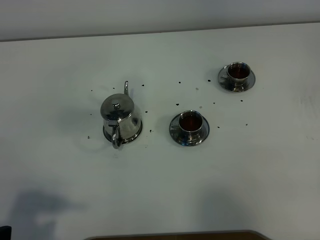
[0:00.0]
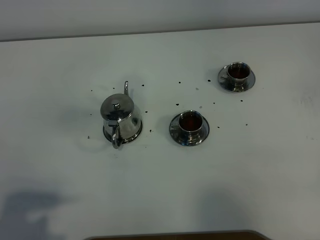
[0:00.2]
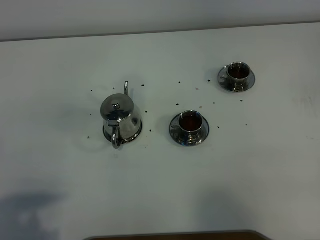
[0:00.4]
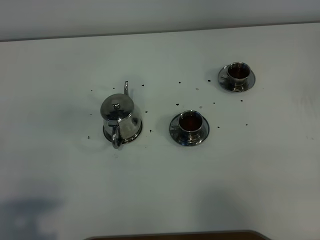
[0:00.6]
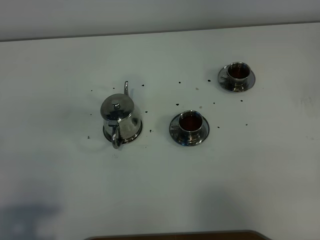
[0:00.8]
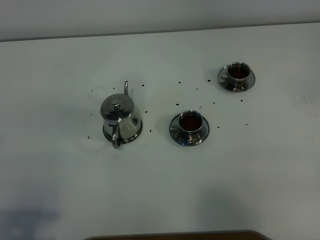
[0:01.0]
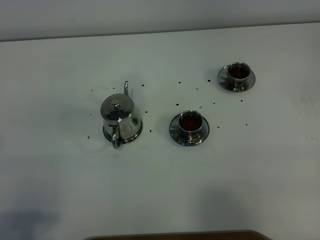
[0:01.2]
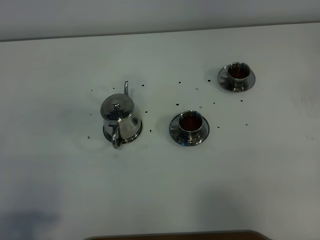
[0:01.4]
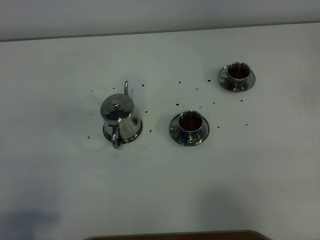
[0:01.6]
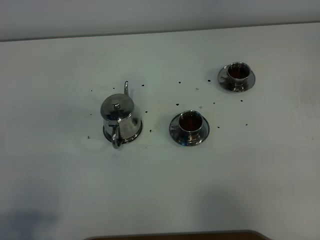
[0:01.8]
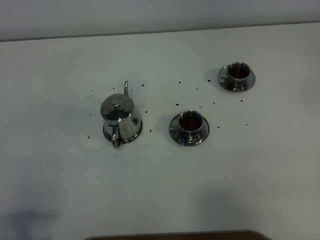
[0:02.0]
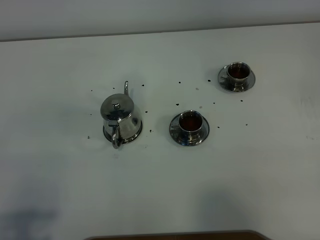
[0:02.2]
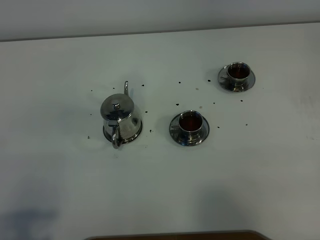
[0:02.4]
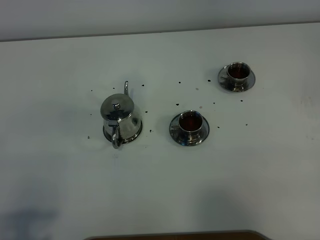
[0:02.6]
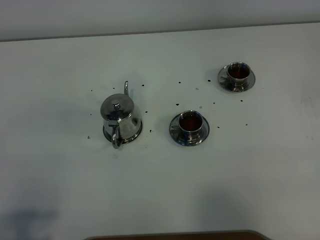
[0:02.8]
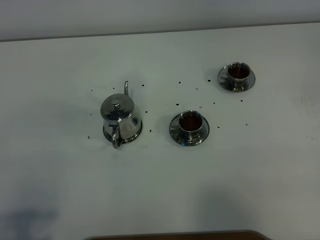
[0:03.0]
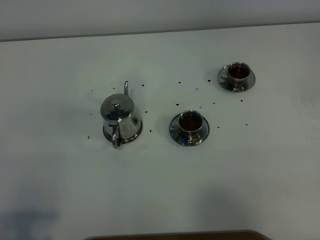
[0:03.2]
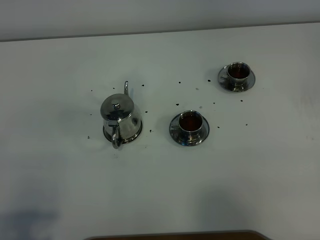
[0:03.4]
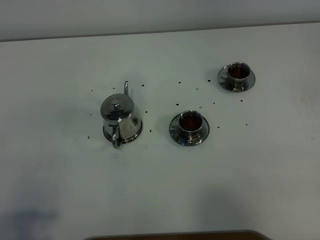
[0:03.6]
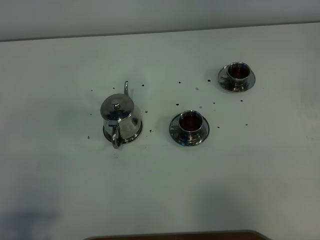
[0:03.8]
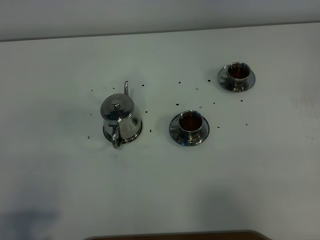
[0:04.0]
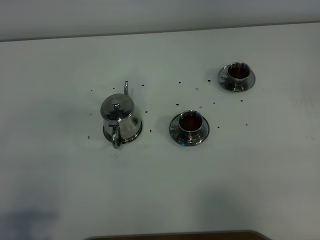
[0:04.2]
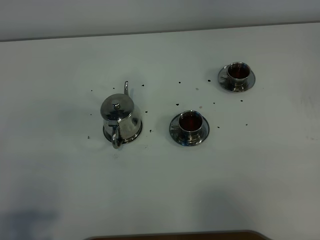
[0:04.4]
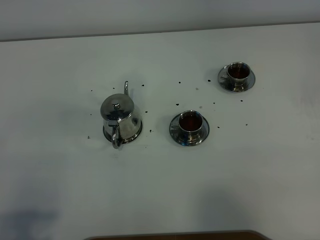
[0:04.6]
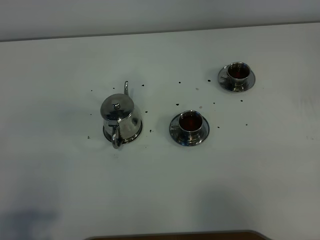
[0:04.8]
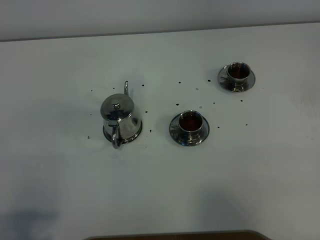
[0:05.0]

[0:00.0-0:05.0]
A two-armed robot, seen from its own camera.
Task of the whole recording: grasp the stainless steel teapot and pour the tea into the two stainless steel teacups one by one, put the stainless steel teapot back in its original place.
0:03.4 to 0:05.0: Both grippers stay about where they are.

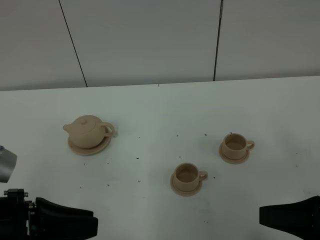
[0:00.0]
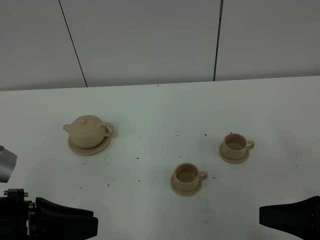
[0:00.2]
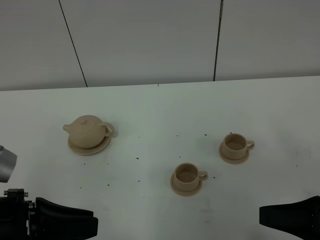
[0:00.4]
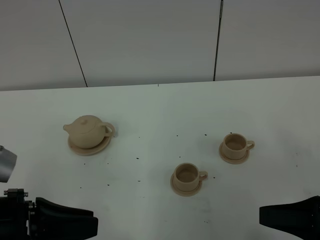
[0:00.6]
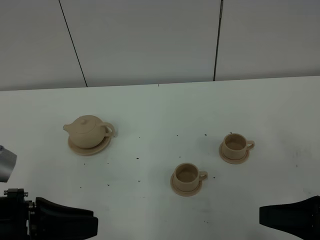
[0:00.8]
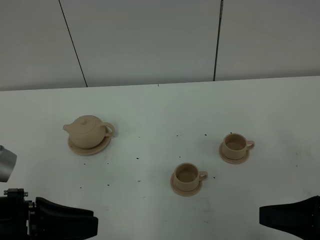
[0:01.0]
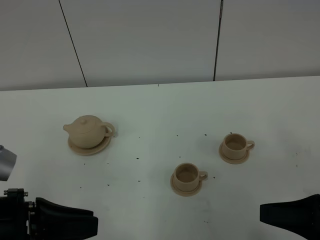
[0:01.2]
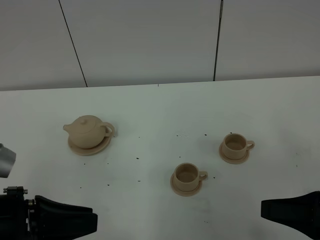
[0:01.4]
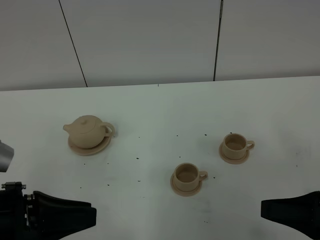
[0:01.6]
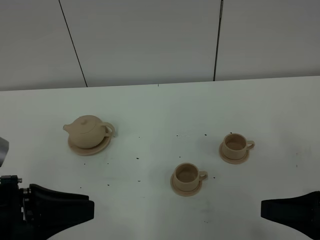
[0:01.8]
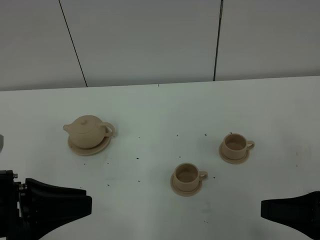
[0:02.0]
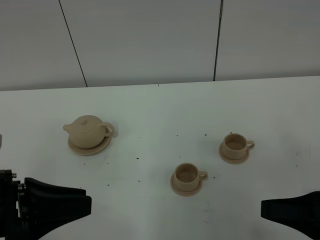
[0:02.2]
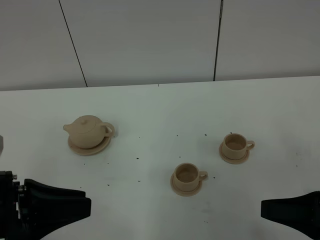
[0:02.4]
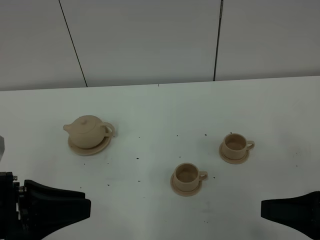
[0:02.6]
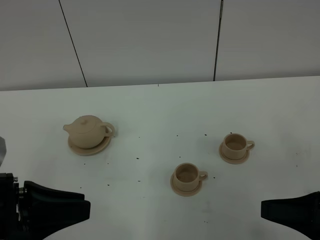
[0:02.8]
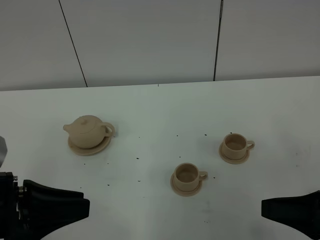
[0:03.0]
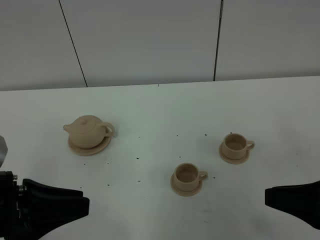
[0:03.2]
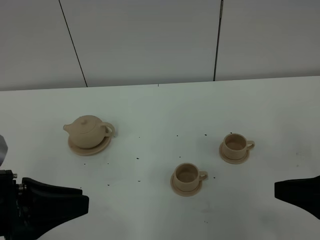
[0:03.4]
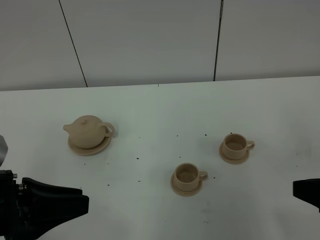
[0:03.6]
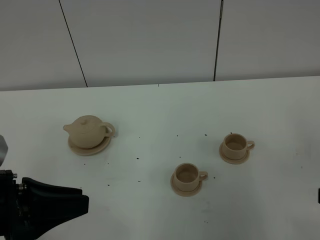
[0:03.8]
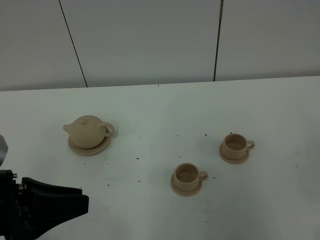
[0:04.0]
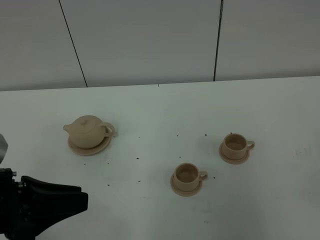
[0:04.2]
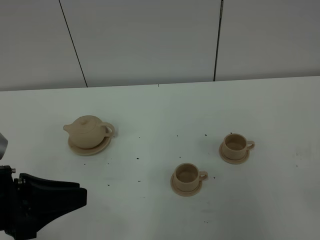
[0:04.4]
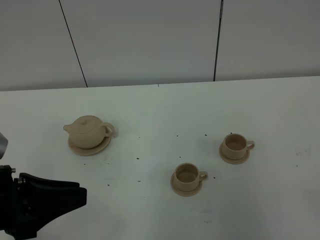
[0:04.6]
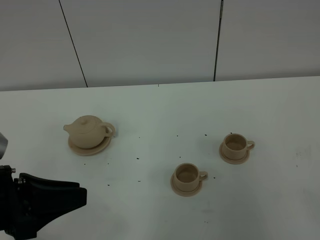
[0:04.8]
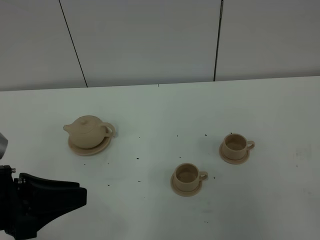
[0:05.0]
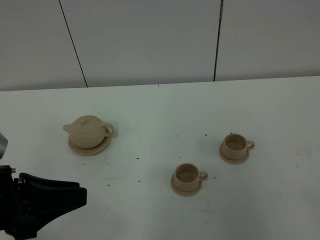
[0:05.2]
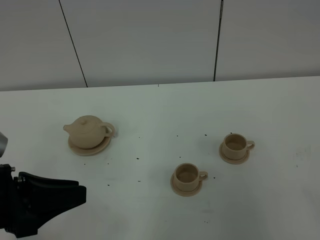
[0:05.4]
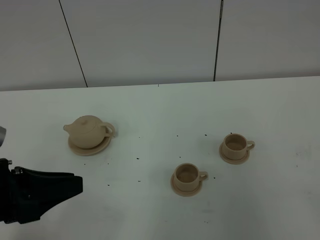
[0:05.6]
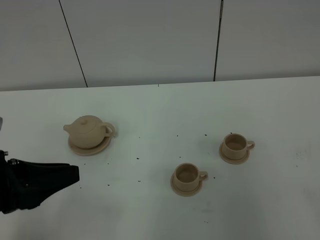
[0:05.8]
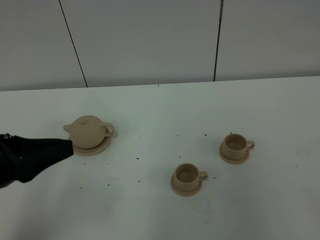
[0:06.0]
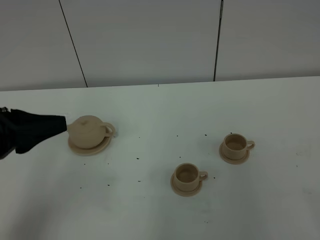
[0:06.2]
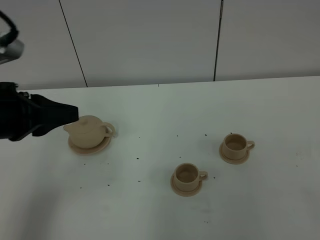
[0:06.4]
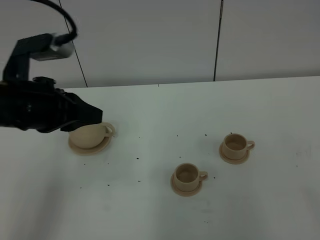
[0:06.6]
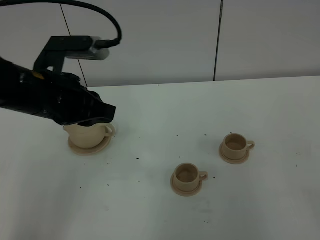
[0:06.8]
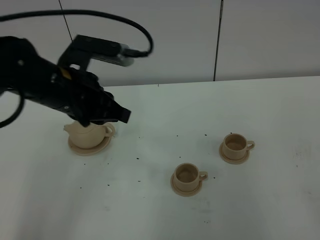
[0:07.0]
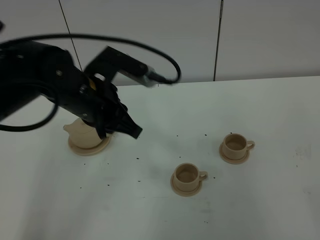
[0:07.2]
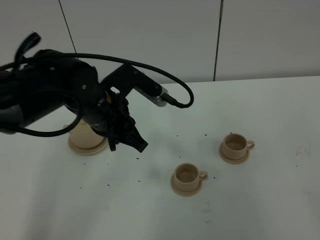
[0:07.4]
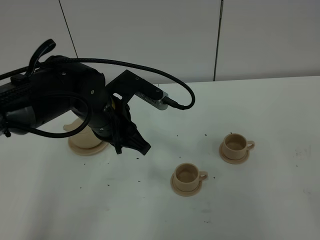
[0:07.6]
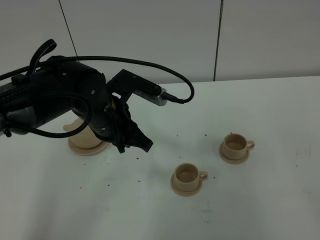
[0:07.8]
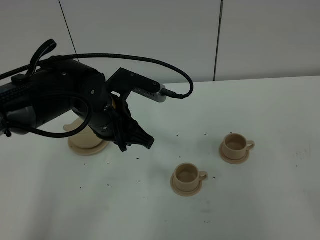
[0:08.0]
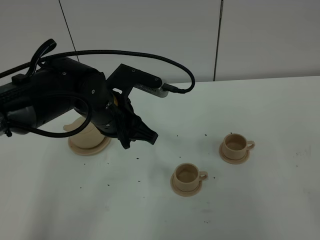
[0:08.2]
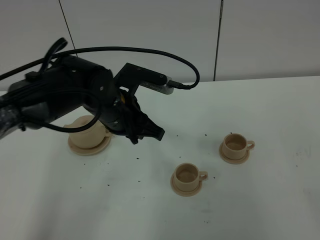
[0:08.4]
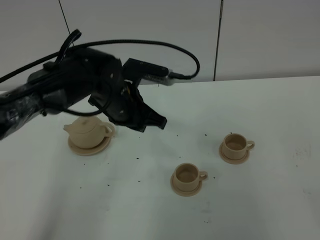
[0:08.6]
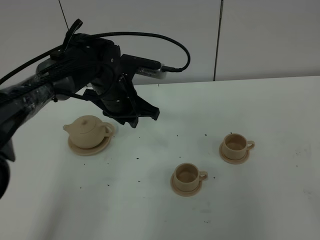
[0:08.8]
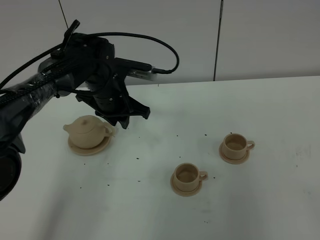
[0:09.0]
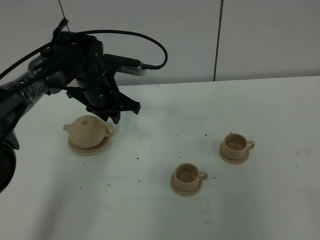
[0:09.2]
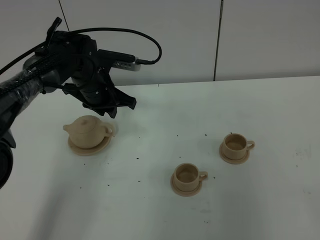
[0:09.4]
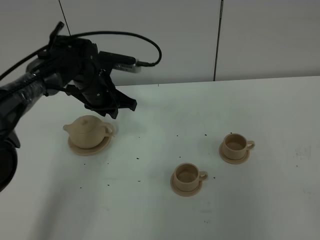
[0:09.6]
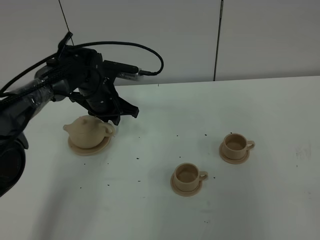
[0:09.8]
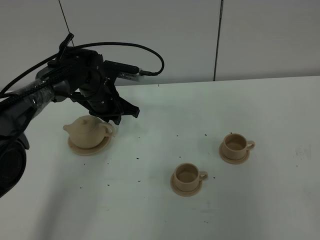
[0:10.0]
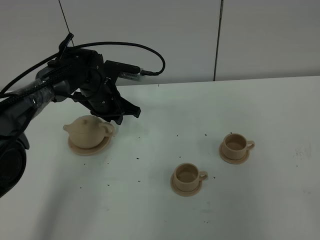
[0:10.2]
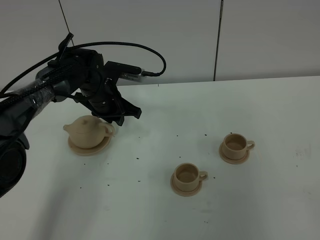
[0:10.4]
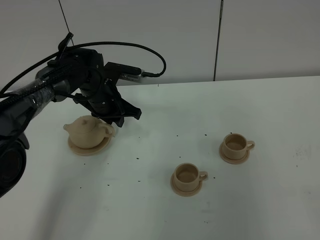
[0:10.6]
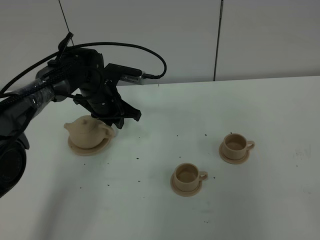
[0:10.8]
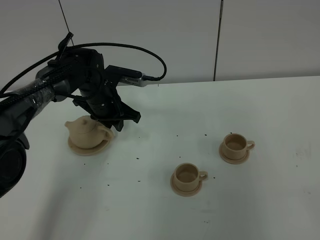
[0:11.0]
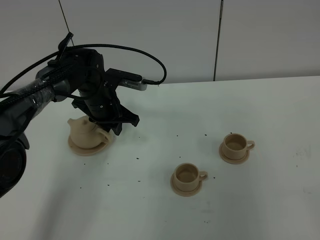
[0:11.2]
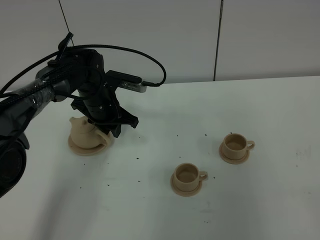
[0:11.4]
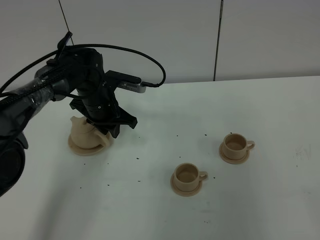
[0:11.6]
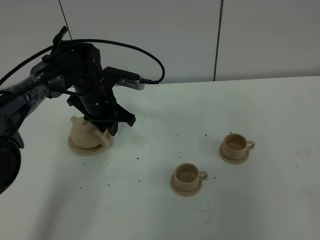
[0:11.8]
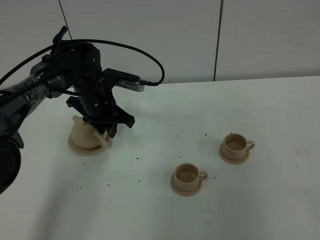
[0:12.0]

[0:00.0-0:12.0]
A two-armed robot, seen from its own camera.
Task of the whole recording: grasp the brown teapot and pour the tea into the two brown teacups one by one, put the brown teapot back in its original place.
0:00.0 to 0:01.6: Both grippers stay put.
0:01.6 to 0:03.0: There are only small adjustments of the grippers.
0:03.0 to 0:04.4: The right gripper is displaced backward and to the right by approximately 10 cm.
0:04.4 to 0:06.0: There are only small adjustments of the grippers.
0:06.0 to 0:07.6: The left gripper is displaced forward, to the right and downward by some 20 cm.
0:07.6 to 0:09.0: The left gripper moves forward, about 10 cm.
0:09.0 to 0:10.4: The left gripper shifts by about 5 cm.
0:10.4 to 0:12.0: The grippers make only small movements.

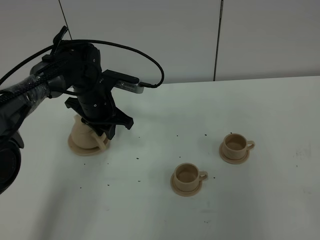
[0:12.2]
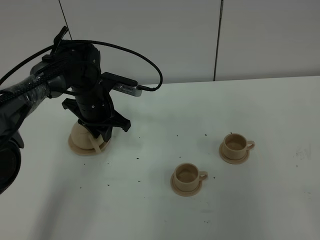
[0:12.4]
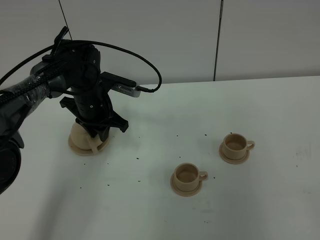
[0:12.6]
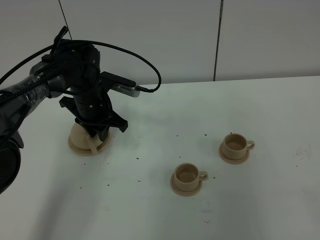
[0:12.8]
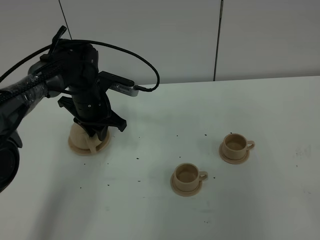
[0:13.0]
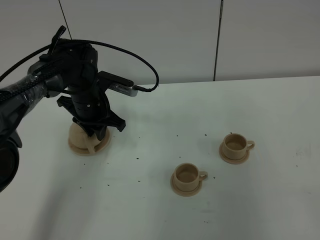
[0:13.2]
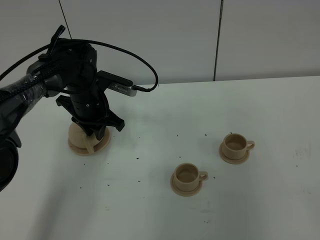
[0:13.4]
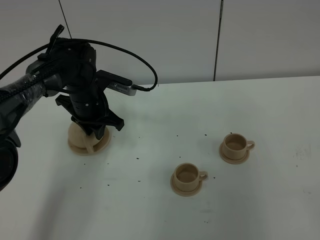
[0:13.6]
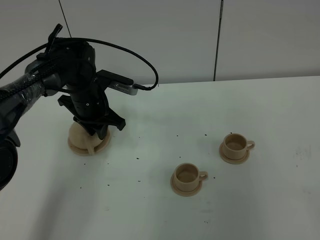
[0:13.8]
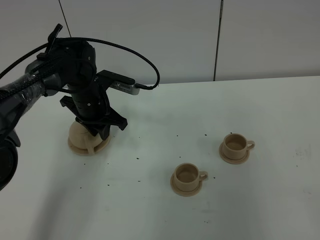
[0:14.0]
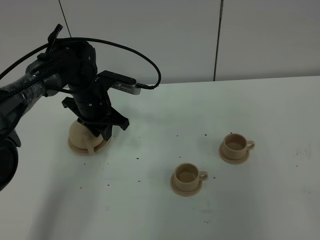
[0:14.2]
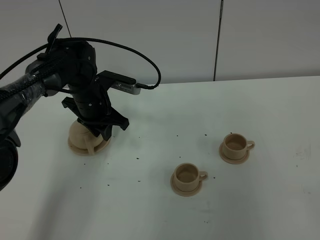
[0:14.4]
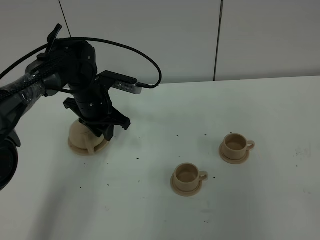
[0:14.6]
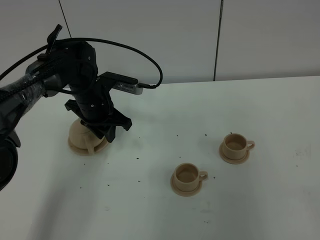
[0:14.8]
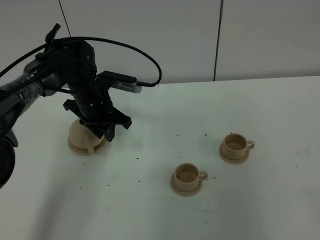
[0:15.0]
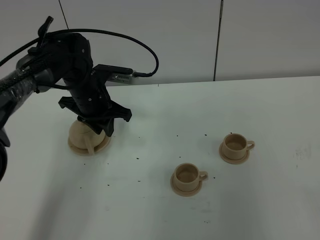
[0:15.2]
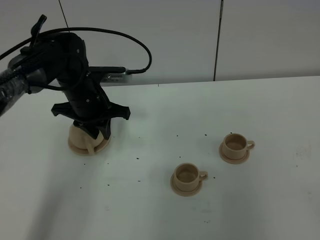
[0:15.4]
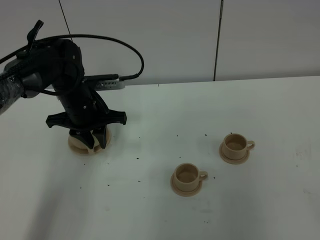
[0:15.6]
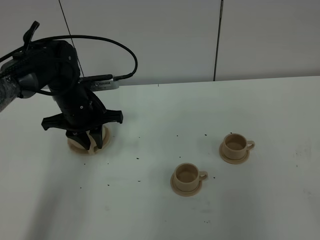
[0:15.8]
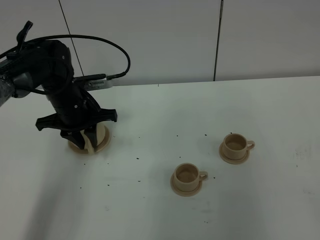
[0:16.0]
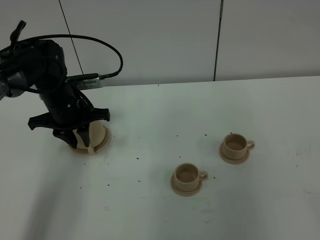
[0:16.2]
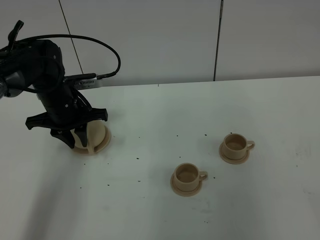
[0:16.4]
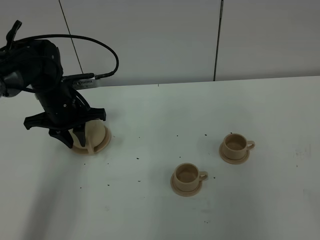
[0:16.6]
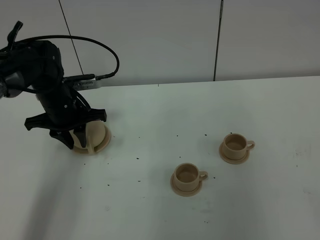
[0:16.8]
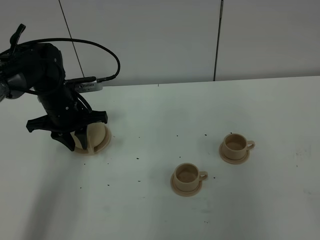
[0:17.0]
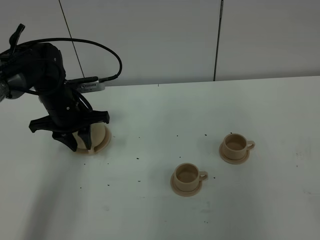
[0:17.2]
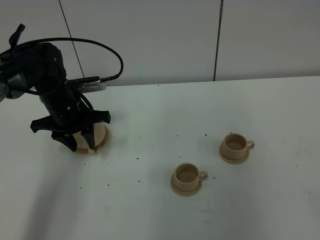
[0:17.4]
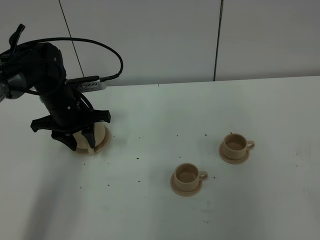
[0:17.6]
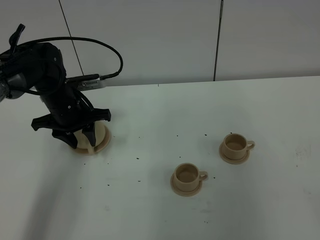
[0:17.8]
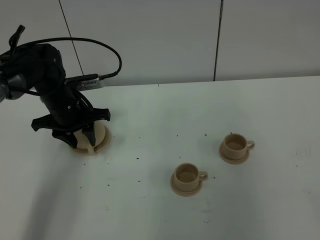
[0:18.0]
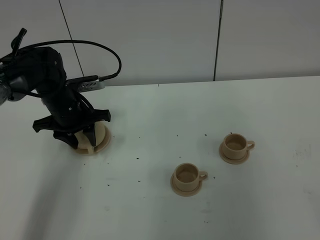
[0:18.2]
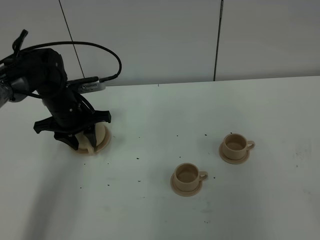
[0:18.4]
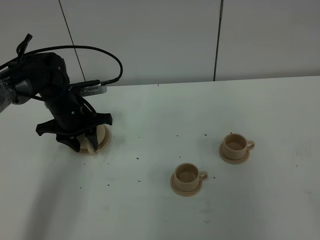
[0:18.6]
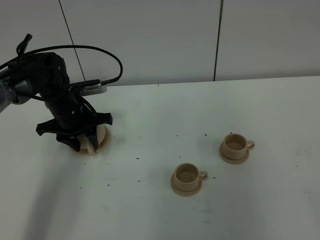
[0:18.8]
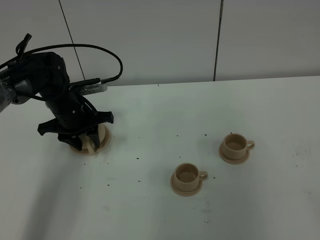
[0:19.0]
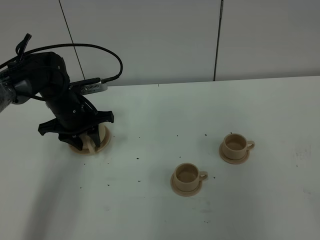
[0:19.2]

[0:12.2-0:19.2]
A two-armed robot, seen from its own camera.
Task of the whole recording: grasp the brown teapot and pour the tea into the two brown teacups one by one, put the brown teapot back in its original place.
0:12.2 to 0:13.6: Both grippers stay put.
0:13.6 to 0:15.0: The grippers move only a little.
0:15.0 to 0:16.4: The left gripper goes approximately 5 cm to the left.
0:16.4 to 0:17.8: The left gripper opens up.
0:17.8 to 0:19.2: The grippers make only small movements.
